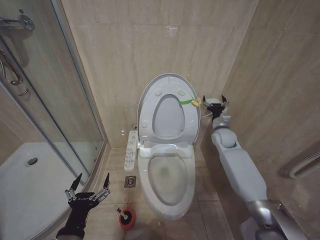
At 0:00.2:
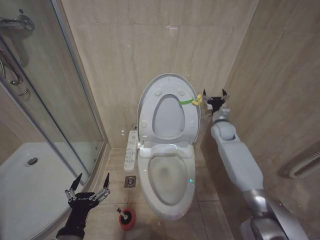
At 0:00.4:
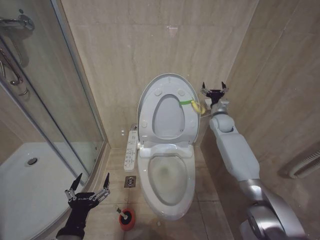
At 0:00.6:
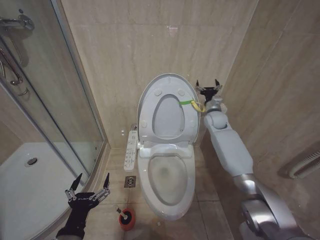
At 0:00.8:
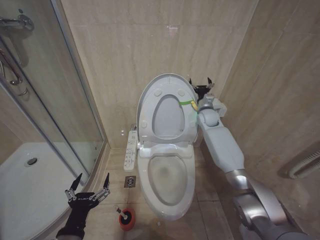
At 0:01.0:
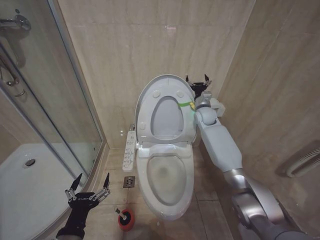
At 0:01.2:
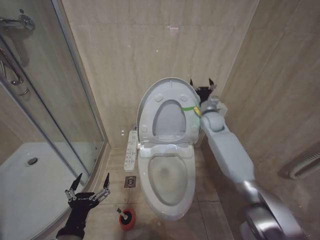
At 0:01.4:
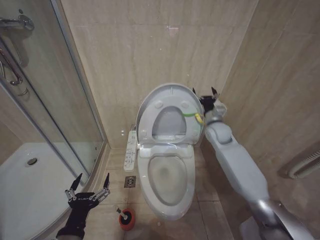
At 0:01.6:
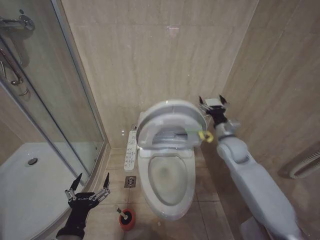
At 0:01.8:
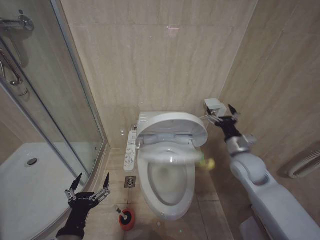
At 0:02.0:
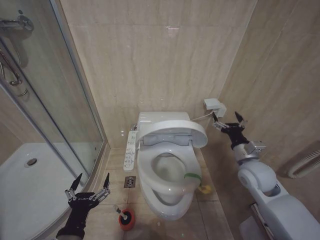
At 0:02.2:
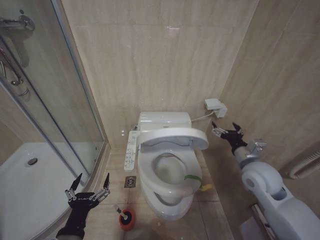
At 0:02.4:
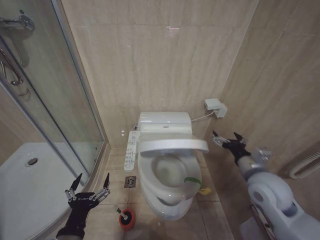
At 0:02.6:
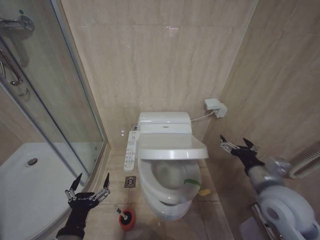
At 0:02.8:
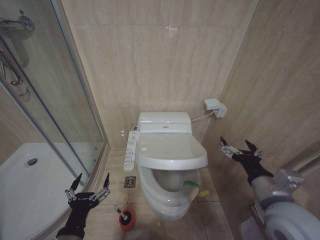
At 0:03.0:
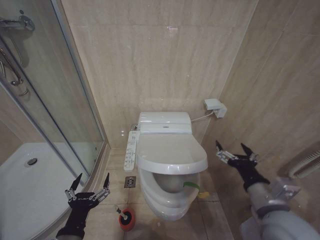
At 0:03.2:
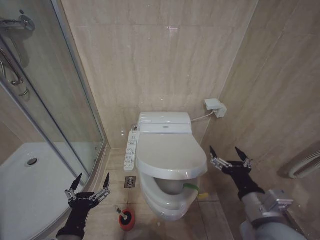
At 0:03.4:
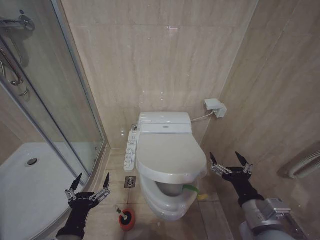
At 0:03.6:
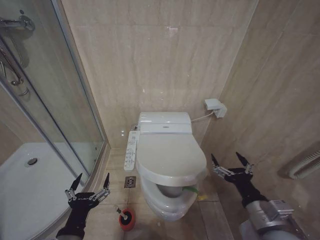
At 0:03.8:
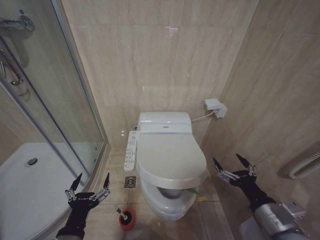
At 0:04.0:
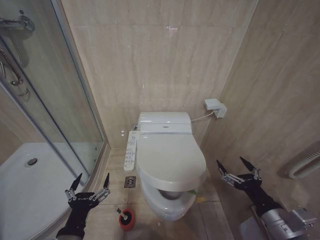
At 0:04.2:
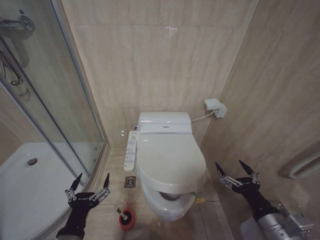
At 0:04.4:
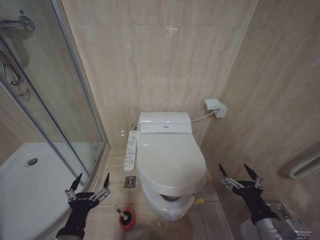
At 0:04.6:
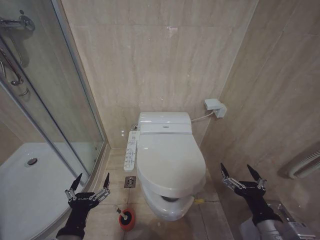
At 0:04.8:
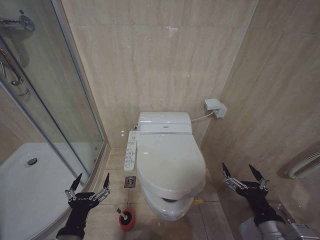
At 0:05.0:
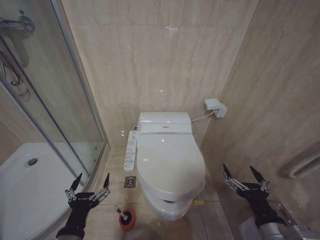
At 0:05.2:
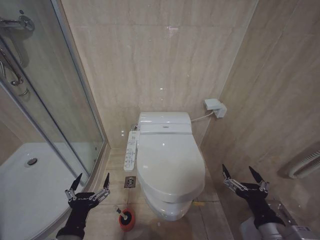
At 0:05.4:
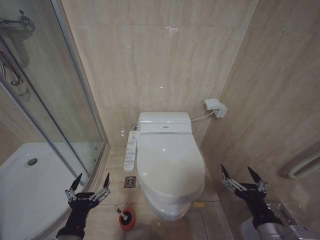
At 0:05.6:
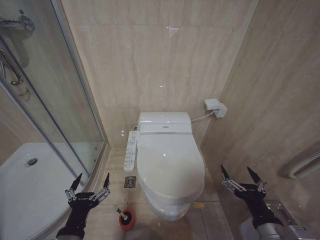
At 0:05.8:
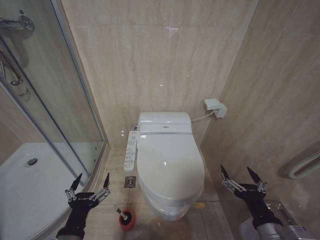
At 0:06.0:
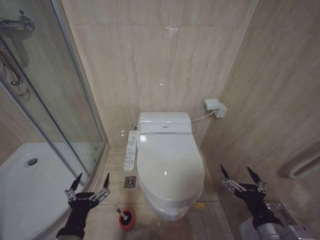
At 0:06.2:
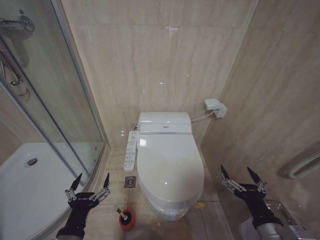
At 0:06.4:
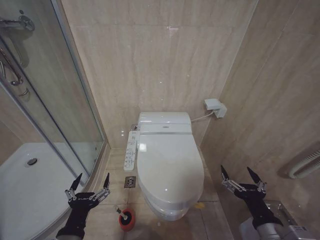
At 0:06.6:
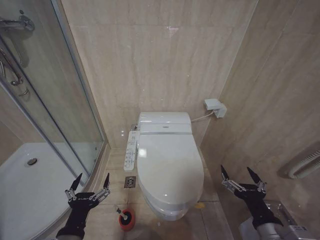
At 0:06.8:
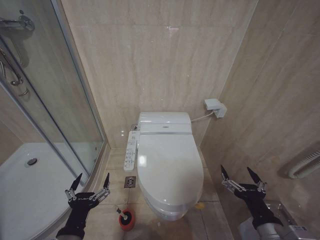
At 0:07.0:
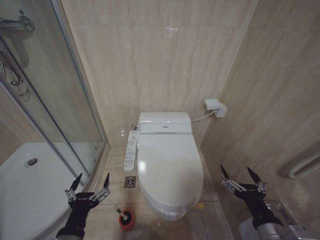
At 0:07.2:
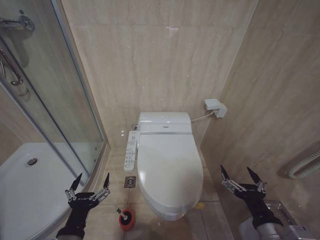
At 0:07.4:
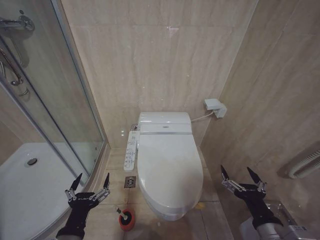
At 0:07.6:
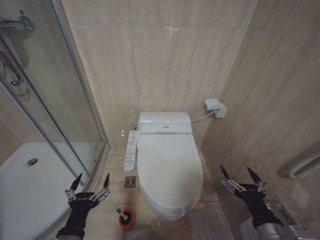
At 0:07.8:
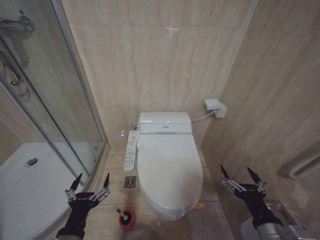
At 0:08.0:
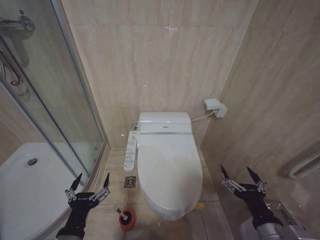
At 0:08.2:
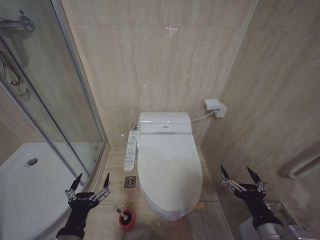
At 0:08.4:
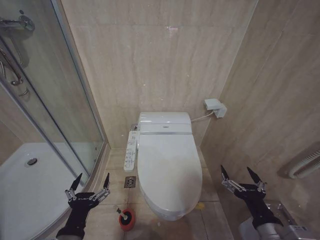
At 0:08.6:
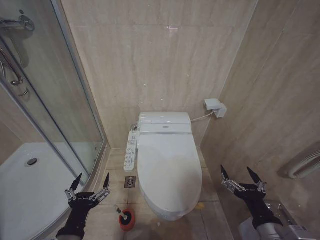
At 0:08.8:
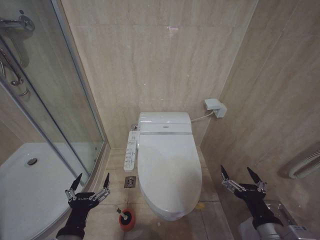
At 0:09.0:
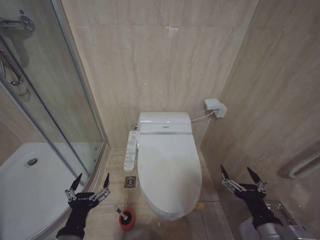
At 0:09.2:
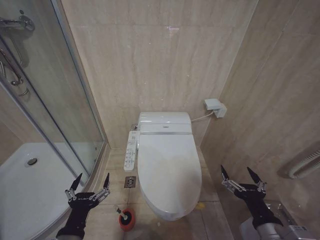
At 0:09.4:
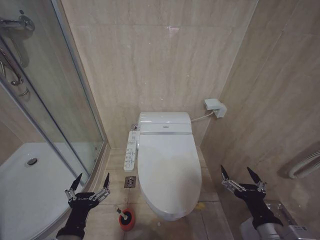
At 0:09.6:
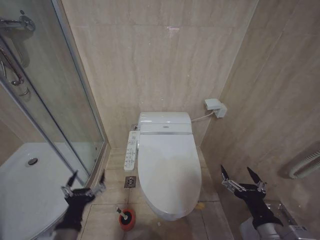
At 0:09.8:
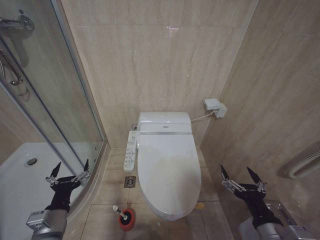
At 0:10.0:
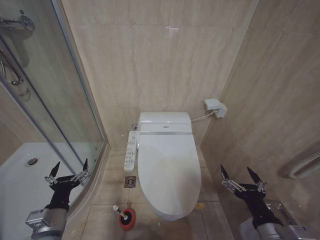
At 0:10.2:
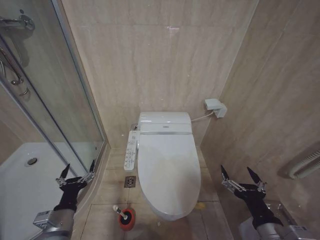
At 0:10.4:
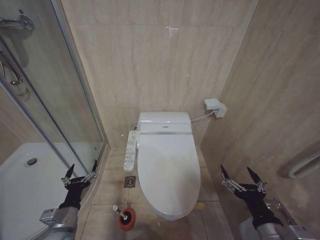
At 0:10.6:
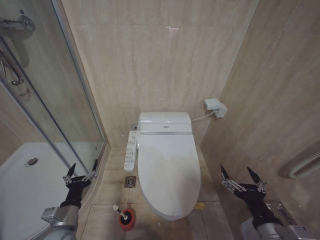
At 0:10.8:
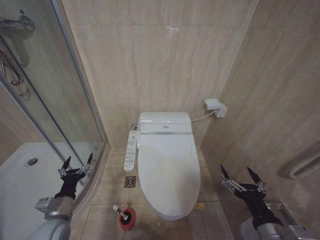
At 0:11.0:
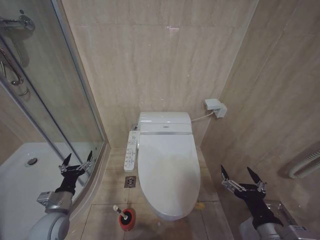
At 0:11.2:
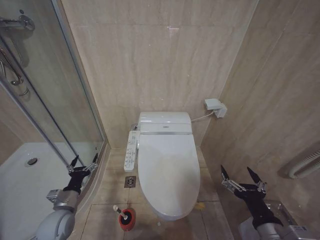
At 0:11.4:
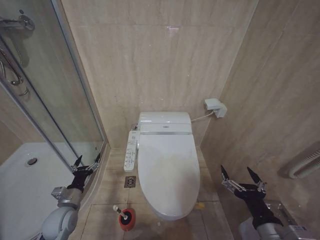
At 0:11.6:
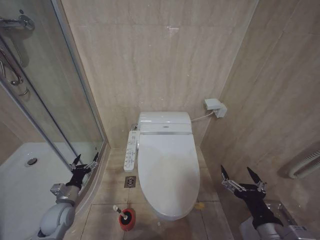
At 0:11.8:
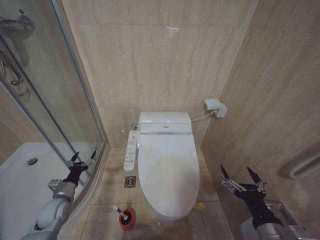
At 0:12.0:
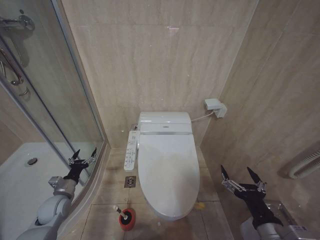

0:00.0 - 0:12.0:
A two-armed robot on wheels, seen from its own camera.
Task of the whole recording: Open the toilet lid, clean the toilet bowl with a toilet brush, close the toilet lid, and flush.
0:00.0 - 0:01.6: The right gripper heads backward, covering approximately 5 cm.
0:01.6 - 0:03.0: The right gripper shifts roughly 30 cm backward.
0:03.0 - 0:04.4: The right gripper moves downward and backward, roughly 10 cm.
0:04.4 - 0:06.0: The grippers make only small movements.
0:06.0 - 0:09.0: Both grippers stay about where they are.
0:09.0 - 0:10.4: The left gripper travels forward, downward and to the left by approximately 15 cm.
0:10.4 - 0:12.0: The left gripper moves forward and to the left, approximately 15 cm.

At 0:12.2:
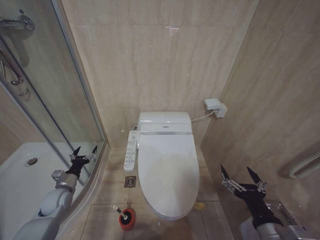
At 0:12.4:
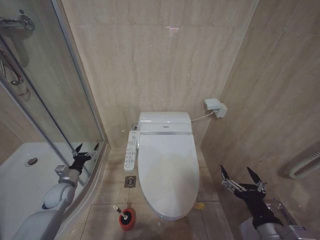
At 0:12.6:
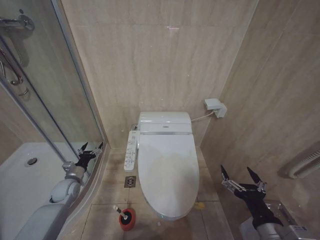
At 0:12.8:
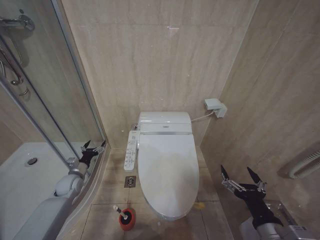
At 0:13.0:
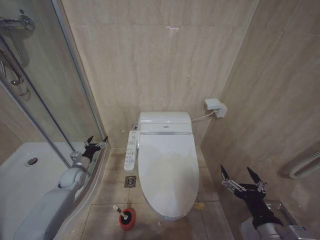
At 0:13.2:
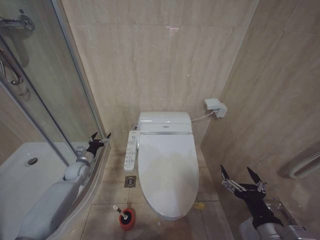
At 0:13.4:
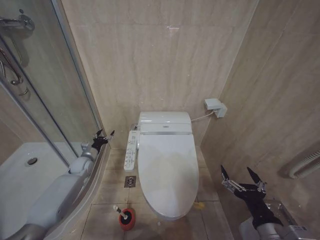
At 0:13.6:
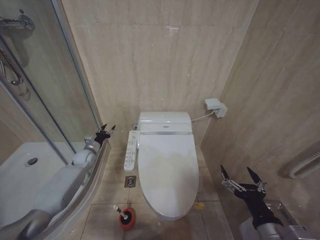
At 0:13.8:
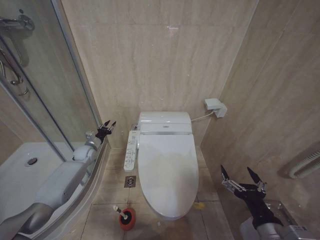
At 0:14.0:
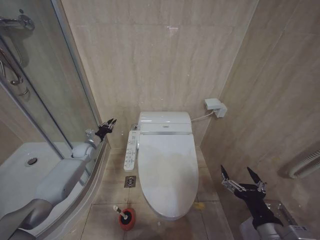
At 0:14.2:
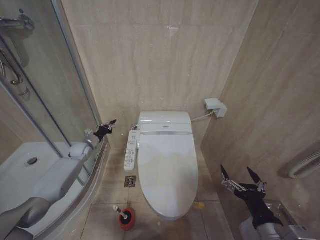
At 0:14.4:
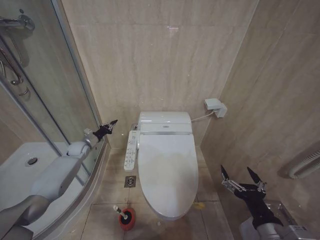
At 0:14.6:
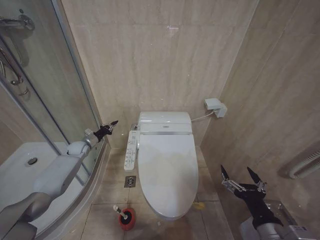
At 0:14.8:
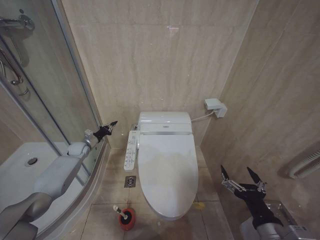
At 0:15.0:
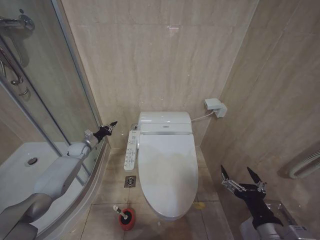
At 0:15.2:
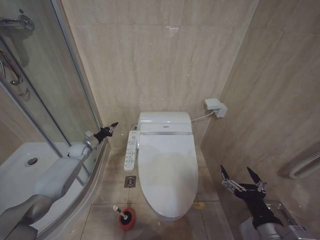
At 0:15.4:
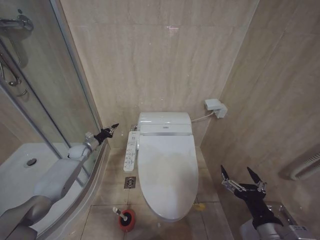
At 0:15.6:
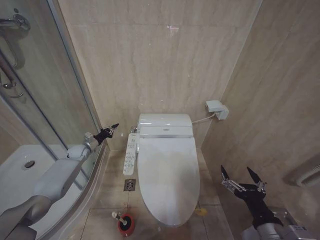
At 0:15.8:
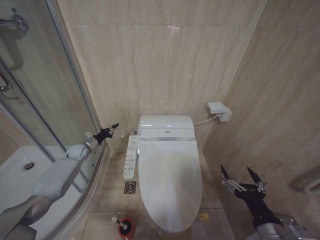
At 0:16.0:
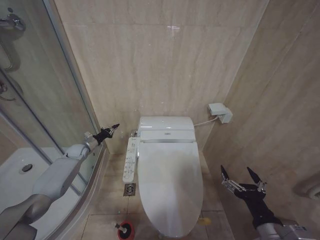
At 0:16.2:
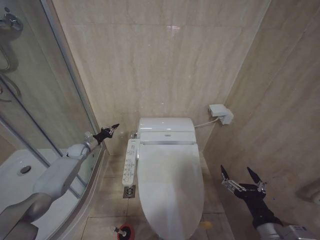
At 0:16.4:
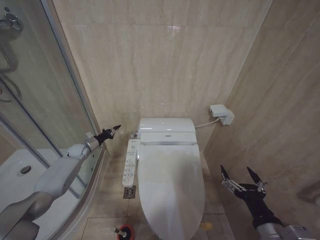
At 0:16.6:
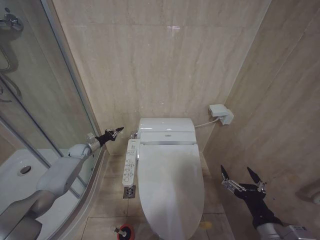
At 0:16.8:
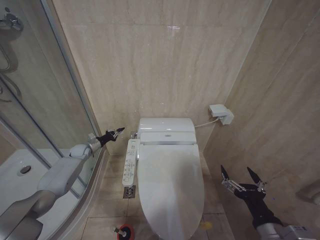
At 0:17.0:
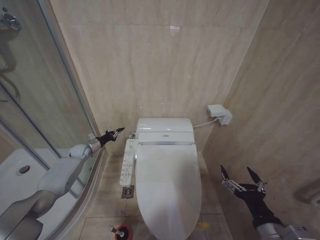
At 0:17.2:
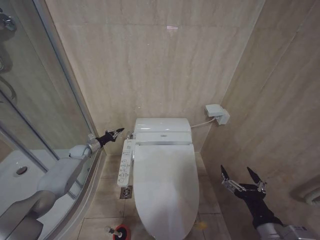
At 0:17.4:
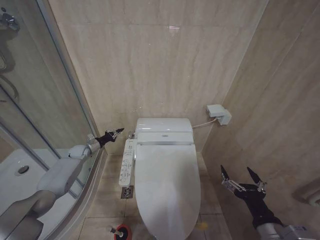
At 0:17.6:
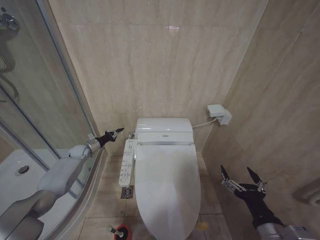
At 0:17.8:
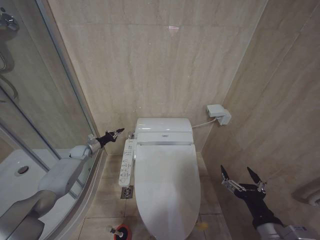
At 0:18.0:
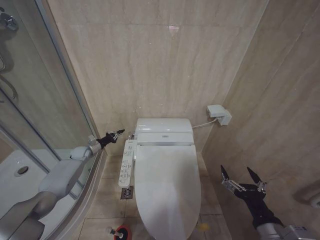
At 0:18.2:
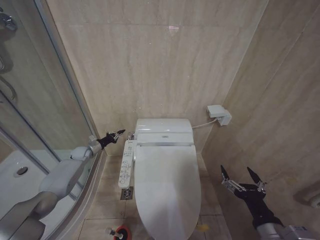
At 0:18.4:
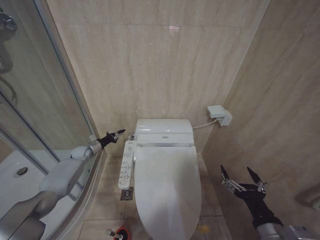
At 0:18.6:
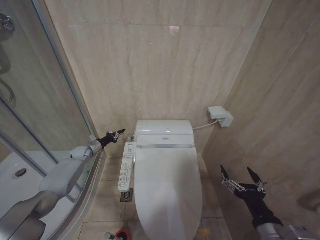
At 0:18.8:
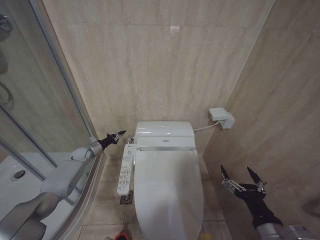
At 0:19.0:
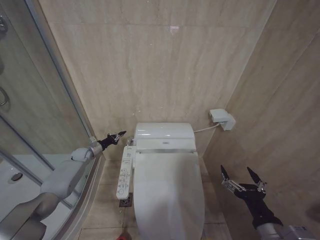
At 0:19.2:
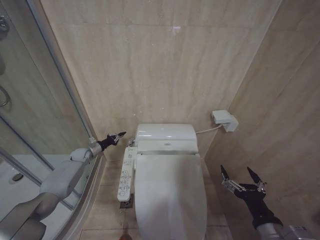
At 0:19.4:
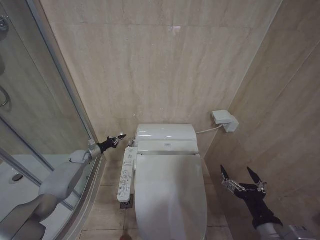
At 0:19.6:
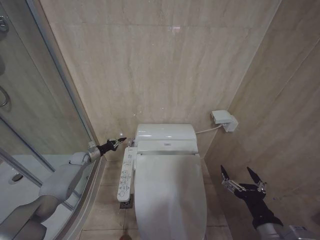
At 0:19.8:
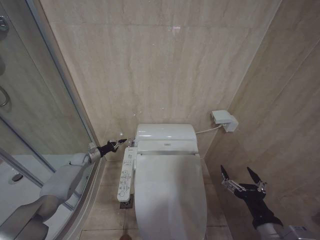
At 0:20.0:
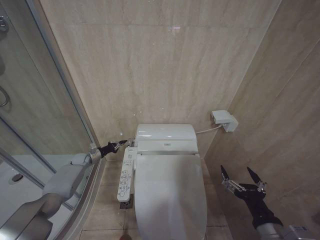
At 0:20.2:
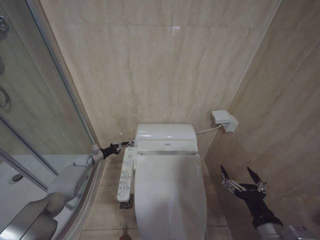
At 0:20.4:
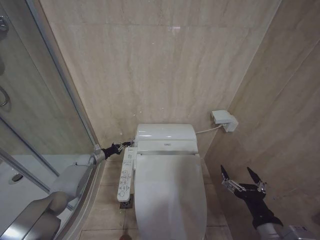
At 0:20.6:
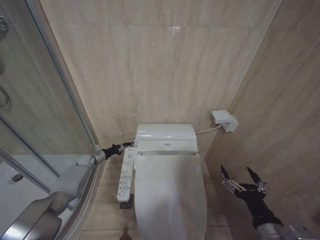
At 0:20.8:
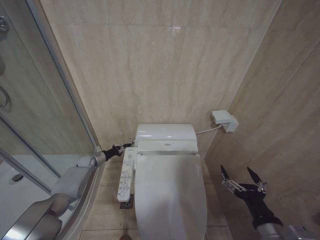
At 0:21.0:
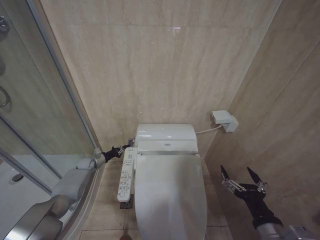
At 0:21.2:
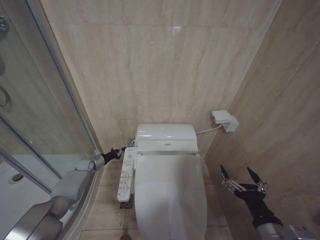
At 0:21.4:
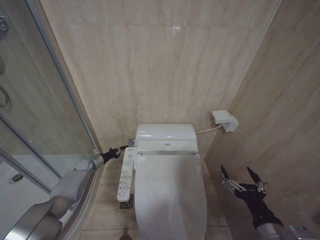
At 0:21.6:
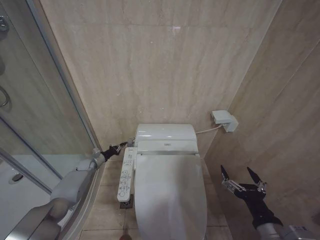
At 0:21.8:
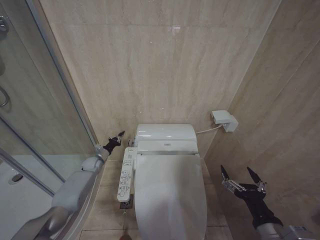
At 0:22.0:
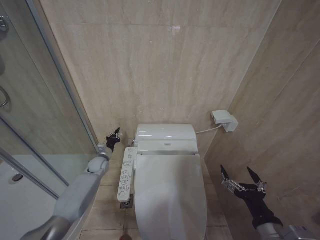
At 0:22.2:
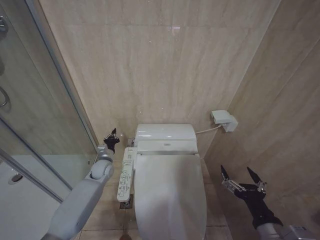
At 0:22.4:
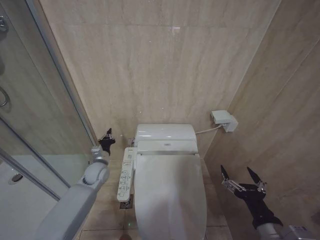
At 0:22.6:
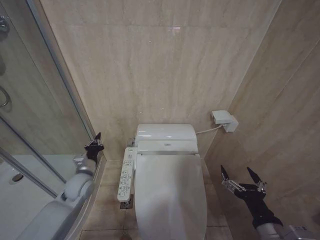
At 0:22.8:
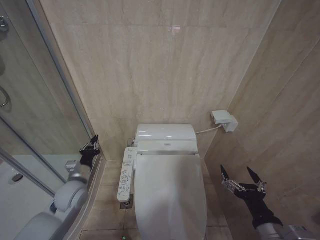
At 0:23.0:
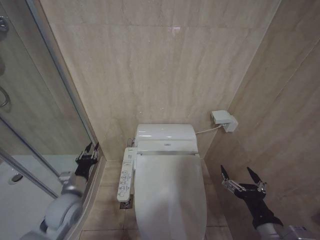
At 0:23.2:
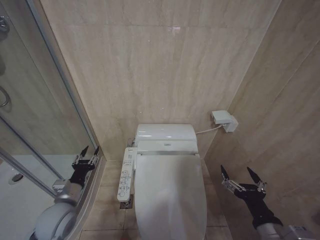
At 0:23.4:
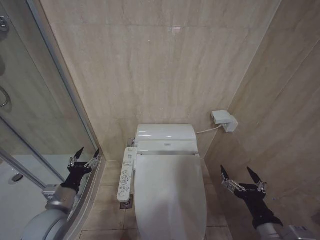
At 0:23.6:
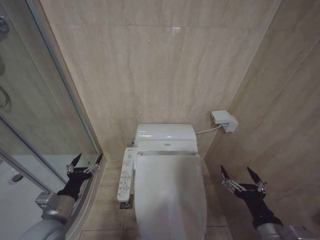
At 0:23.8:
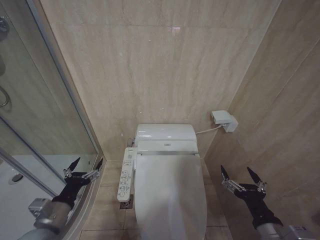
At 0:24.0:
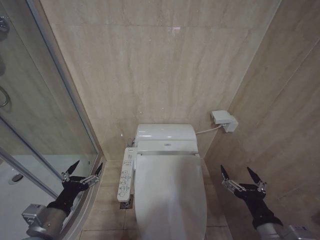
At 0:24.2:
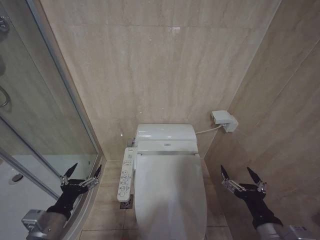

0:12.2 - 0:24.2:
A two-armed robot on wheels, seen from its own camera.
Task of the whole recording: Open the toilet lid, clean the toilet bowl with a toilet brush, close the toilet lid, and flush.
0:12.2 - 0:13.8: The left gripper is displaced forward by some 20 cm.
0:13.8 - 0:15.2: The left gripper closes.
0:15.2 - 0:18.2: The grippers make only small movements.
0:18.2 - 0:19.8: The grippers move only a little.
0:19.8 - 0:21.2: The left gripper goes about 5 cm downward.
0:21.2 - 0:22.6: The left gripper goes about 20 cm backward, to the right and upward.
0:22.6 - 0:24.2: The left gripper moves backward, roughly 25 cm, and opens its fingers.
